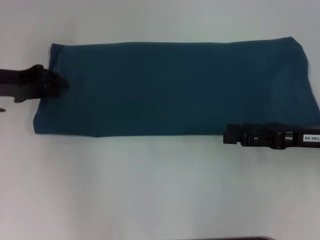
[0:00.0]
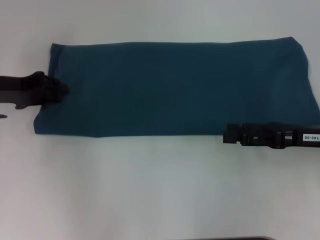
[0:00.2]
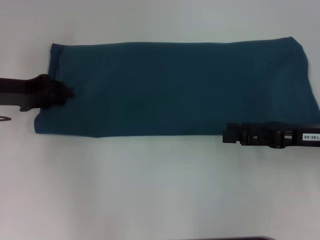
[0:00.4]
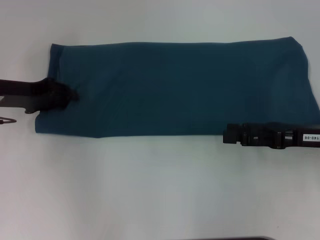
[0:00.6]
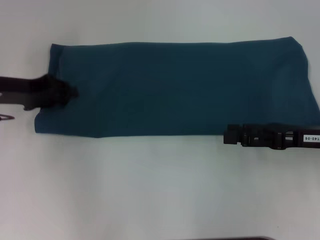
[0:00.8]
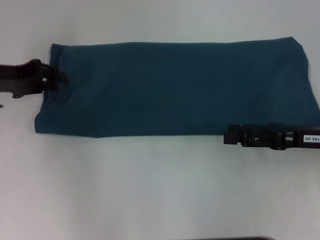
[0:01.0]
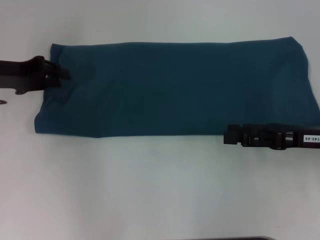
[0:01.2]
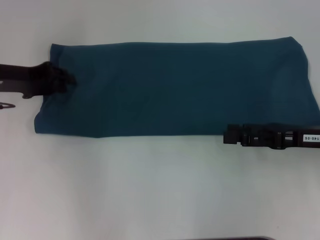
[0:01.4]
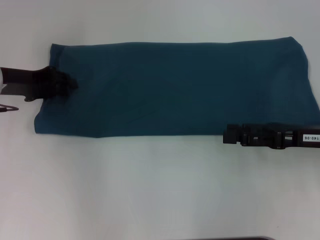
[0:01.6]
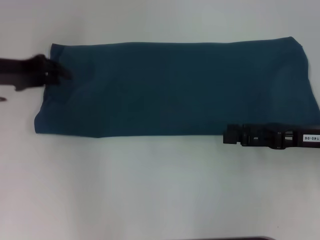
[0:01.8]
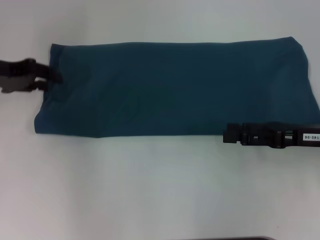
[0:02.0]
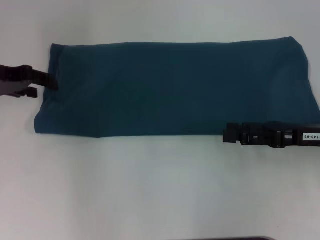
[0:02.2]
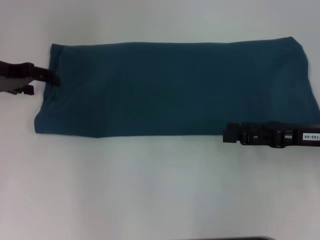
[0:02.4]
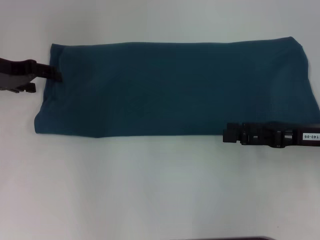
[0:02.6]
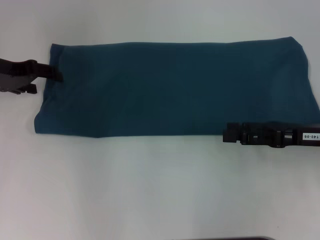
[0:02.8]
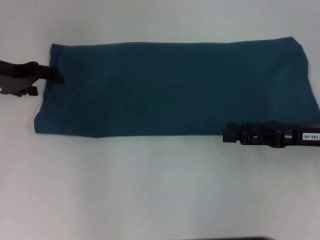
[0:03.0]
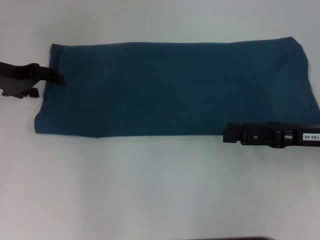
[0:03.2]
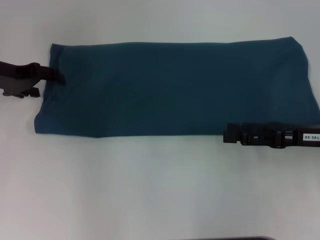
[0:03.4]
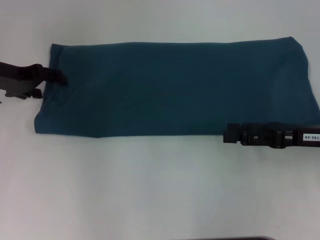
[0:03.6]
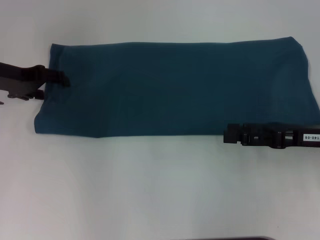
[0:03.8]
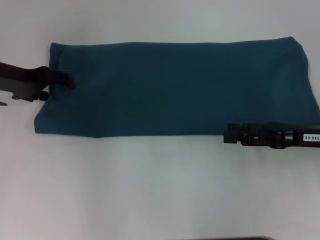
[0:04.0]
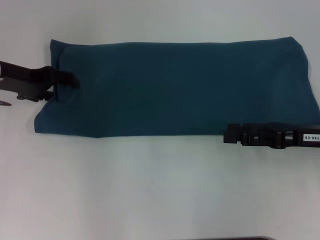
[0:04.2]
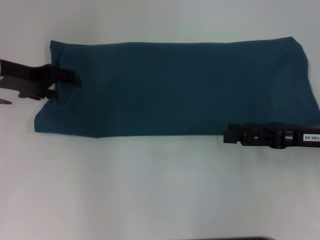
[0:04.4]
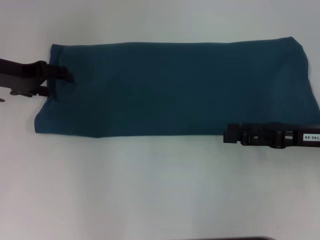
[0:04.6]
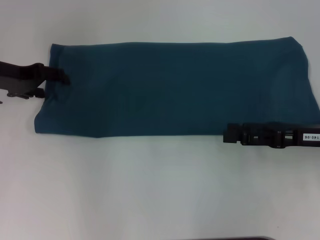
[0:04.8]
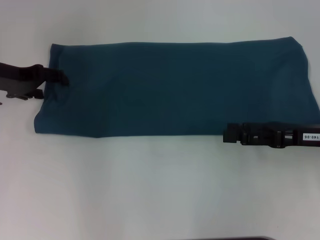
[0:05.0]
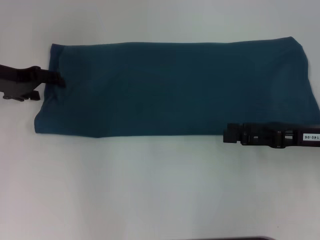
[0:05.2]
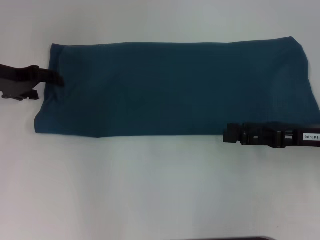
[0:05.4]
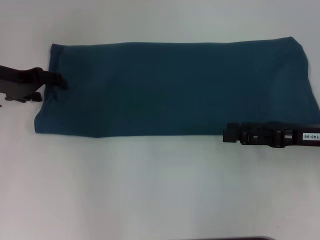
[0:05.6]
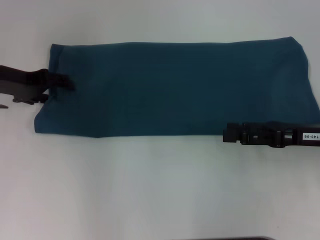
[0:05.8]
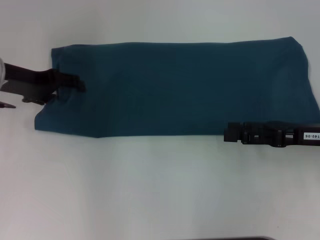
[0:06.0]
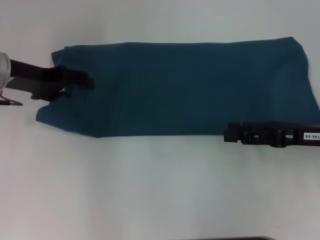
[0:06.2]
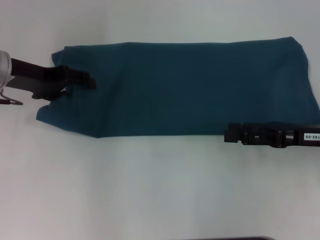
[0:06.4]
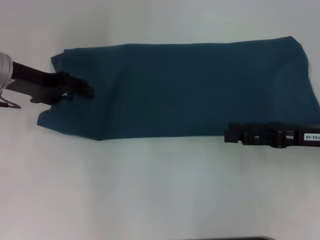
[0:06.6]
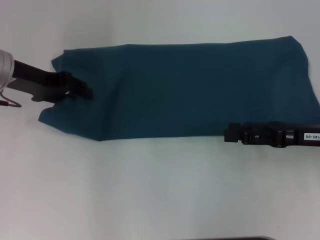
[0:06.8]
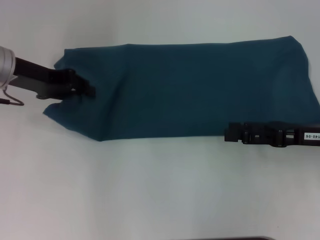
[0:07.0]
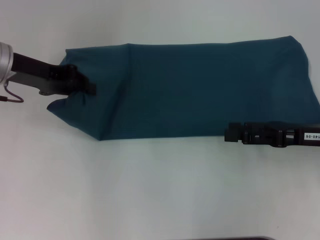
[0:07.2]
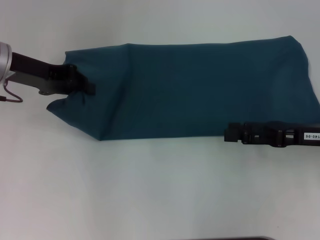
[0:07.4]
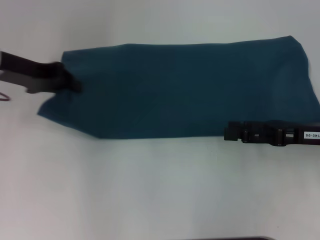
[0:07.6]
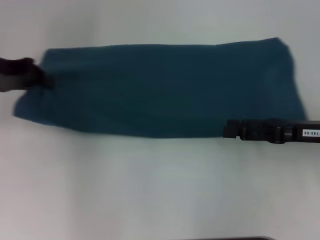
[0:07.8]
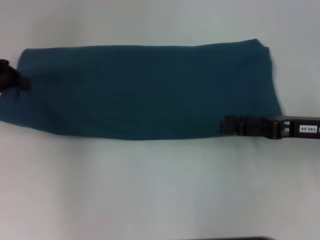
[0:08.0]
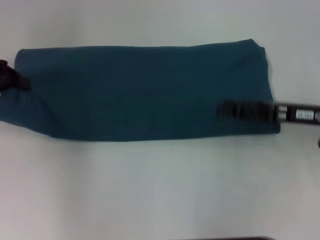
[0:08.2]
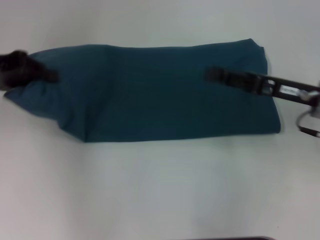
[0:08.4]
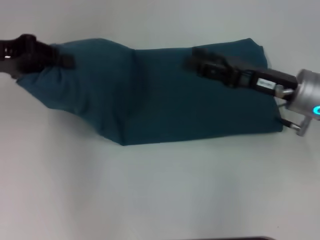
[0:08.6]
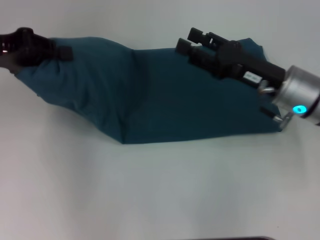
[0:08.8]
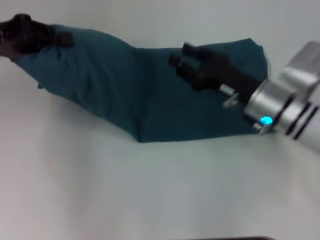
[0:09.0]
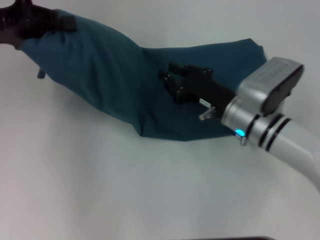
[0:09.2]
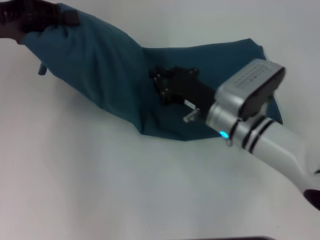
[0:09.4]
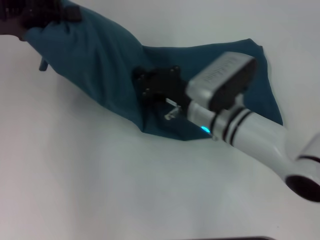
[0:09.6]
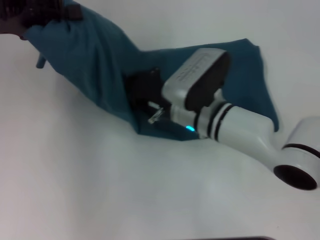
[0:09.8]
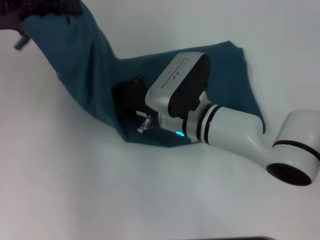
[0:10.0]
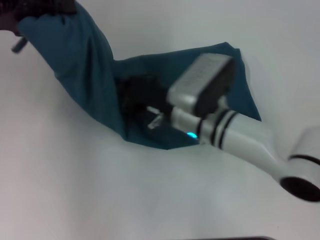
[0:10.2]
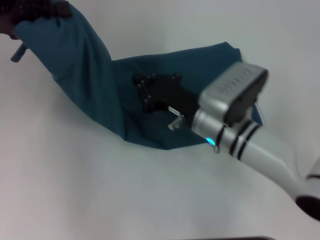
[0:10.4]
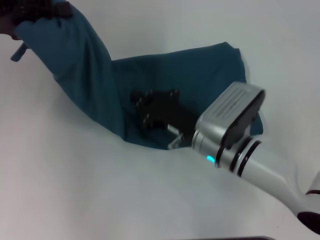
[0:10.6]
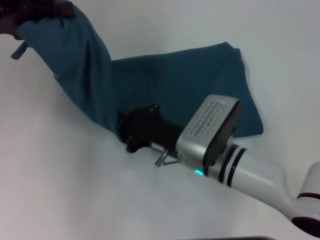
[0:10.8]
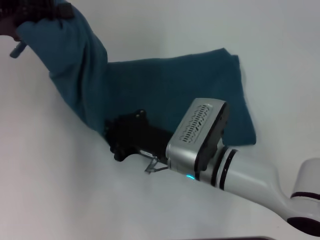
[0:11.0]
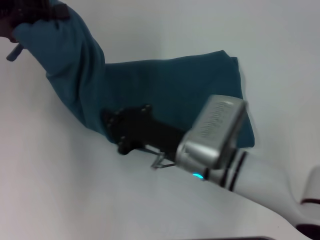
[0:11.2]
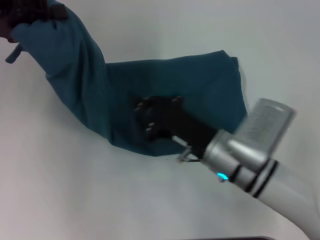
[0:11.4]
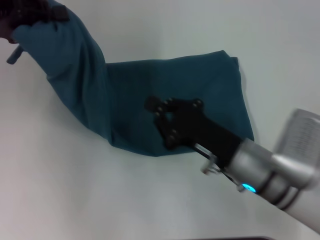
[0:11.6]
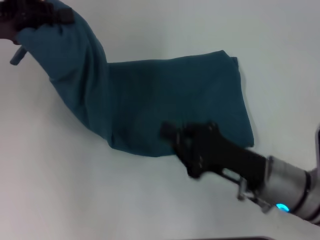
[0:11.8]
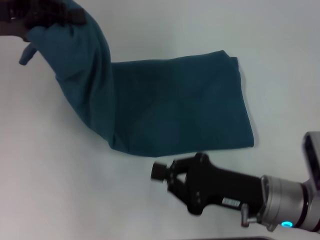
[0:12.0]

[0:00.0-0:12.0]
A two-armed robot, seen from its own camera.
0:00.0 to 0:01.6: The grippers move only a little.
0:01.6 to 0:03.0: The left gripper opens up.
0:03.0 to 0:06.0: The grippers move only a little.
0:06.0 to 0:07.6: The left gripper closes its fingers.
0:07.6 to 0:09.0: The right gripper shifts approximately 10 cm to the left; the left gripper moves some 5 cm.
0:09.0 to 0:10.4: The right gripper shifts some 10 cm to the left, and closes up.
0:10.4 to 0:12.0: The right gripper moves backward and to the right, roughly 10 cm.

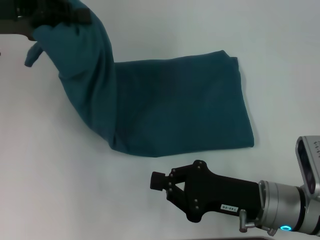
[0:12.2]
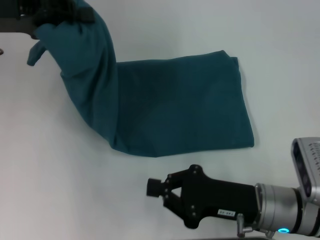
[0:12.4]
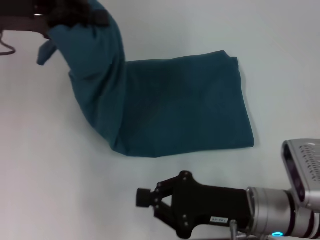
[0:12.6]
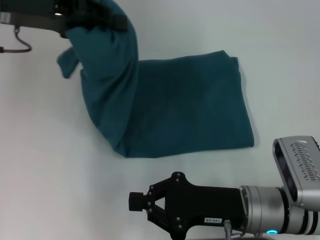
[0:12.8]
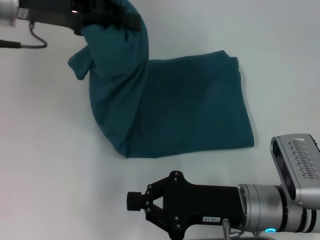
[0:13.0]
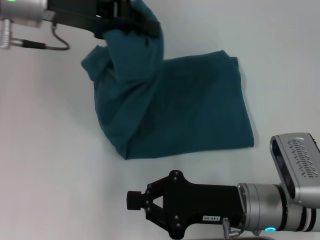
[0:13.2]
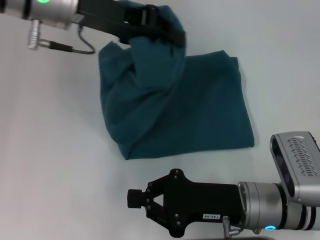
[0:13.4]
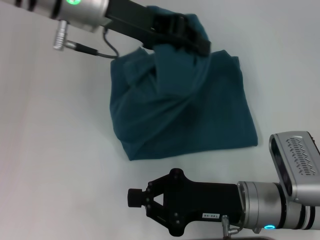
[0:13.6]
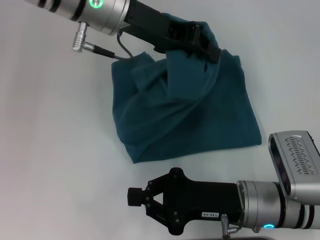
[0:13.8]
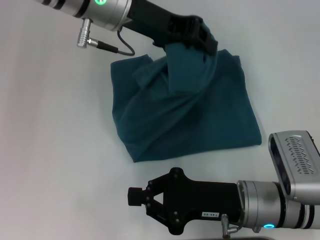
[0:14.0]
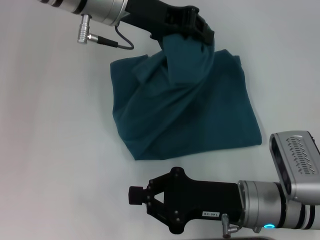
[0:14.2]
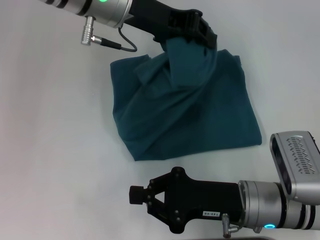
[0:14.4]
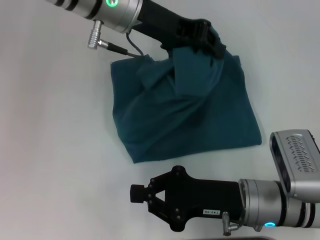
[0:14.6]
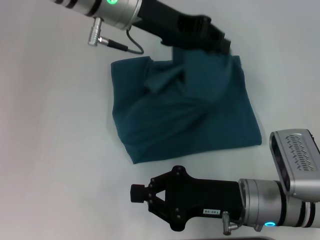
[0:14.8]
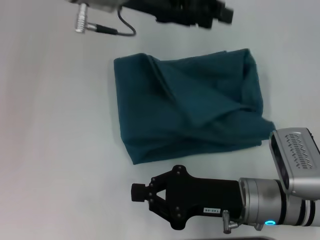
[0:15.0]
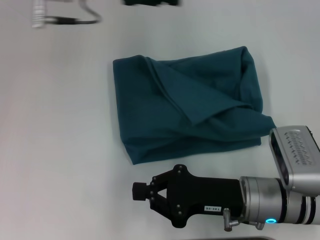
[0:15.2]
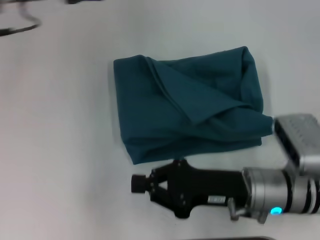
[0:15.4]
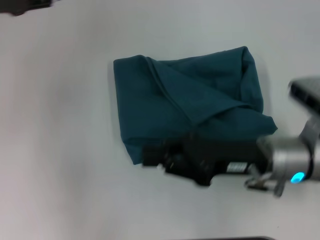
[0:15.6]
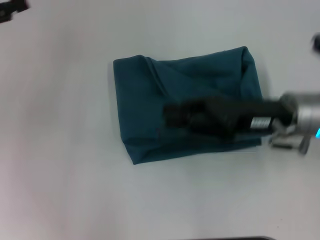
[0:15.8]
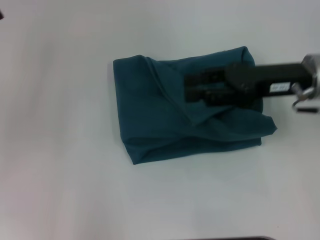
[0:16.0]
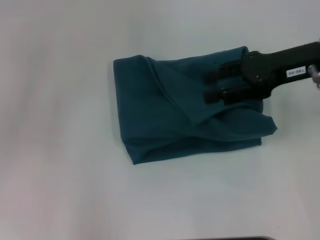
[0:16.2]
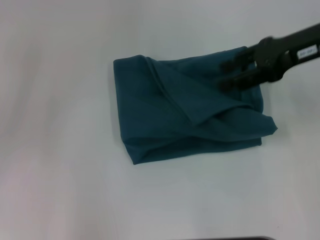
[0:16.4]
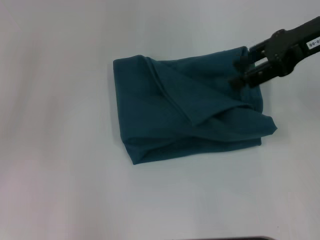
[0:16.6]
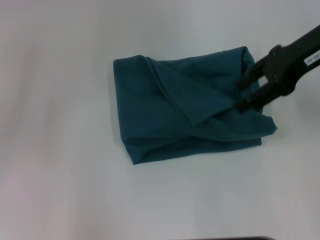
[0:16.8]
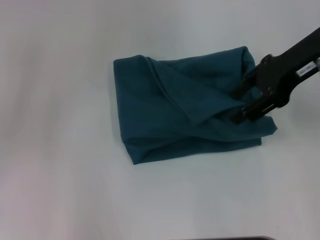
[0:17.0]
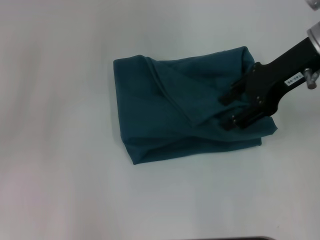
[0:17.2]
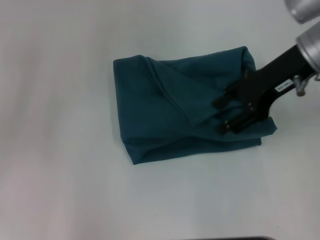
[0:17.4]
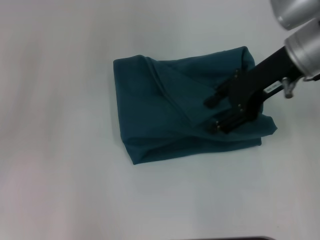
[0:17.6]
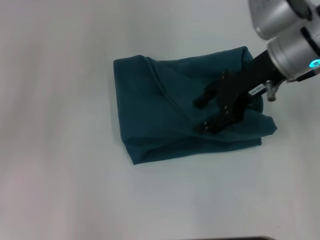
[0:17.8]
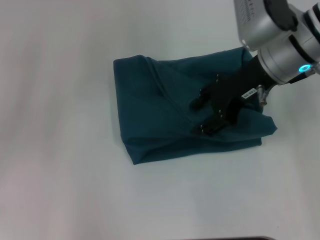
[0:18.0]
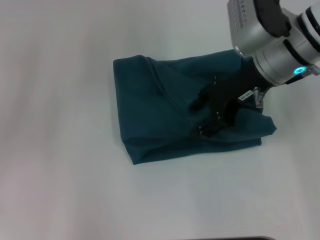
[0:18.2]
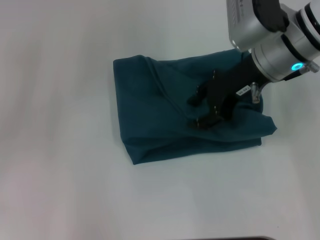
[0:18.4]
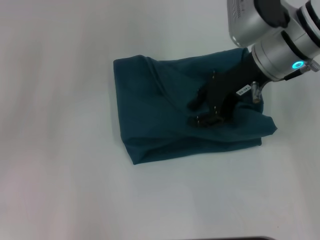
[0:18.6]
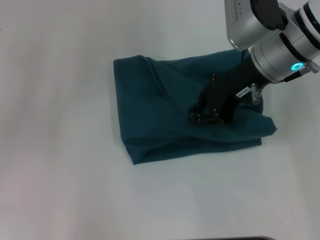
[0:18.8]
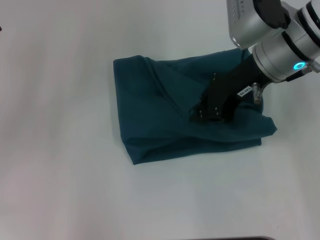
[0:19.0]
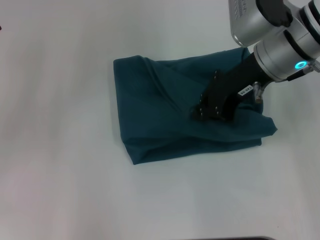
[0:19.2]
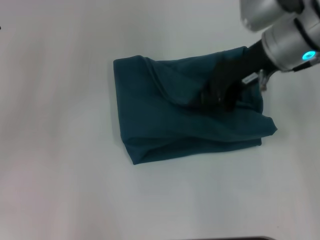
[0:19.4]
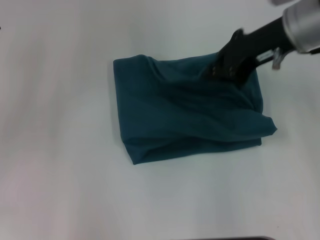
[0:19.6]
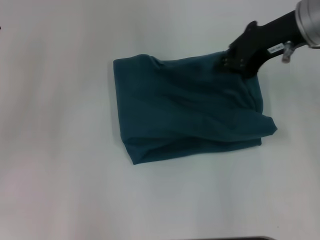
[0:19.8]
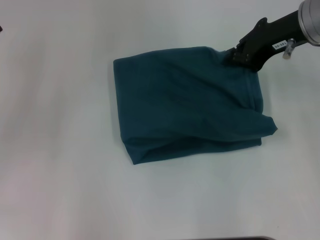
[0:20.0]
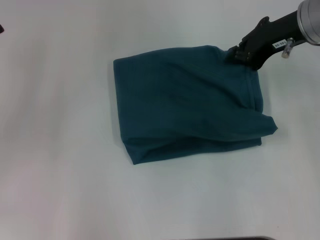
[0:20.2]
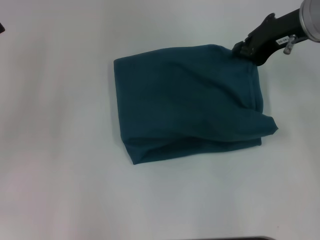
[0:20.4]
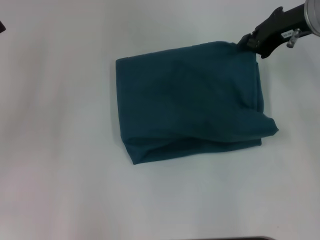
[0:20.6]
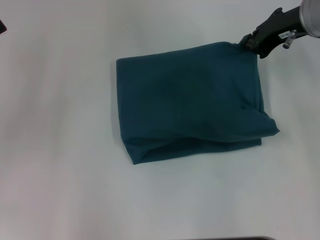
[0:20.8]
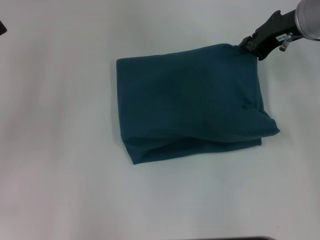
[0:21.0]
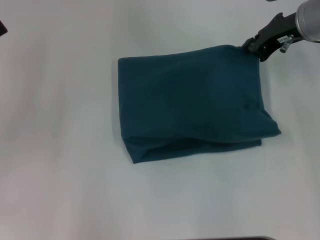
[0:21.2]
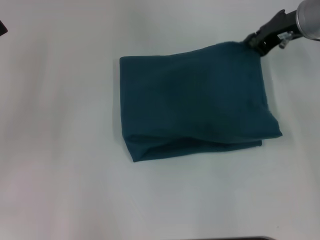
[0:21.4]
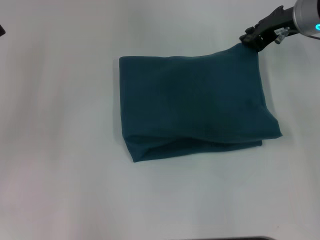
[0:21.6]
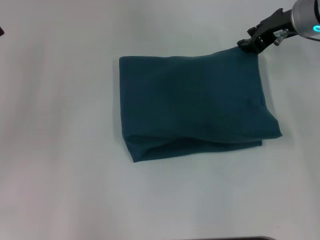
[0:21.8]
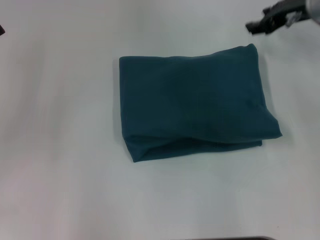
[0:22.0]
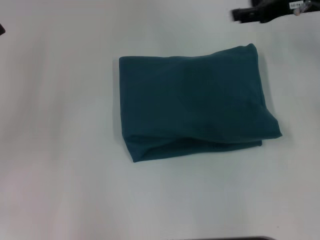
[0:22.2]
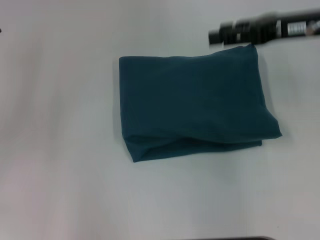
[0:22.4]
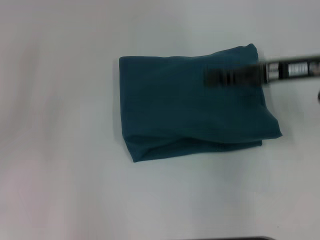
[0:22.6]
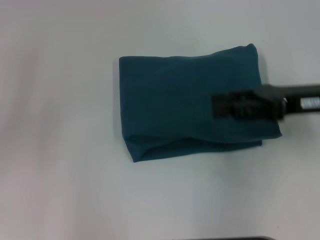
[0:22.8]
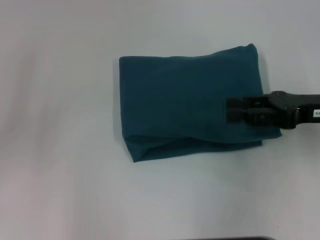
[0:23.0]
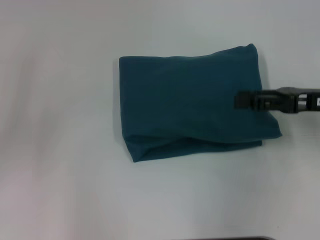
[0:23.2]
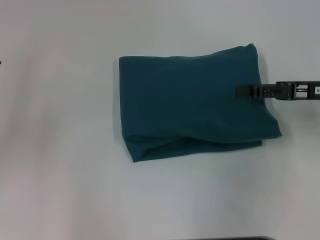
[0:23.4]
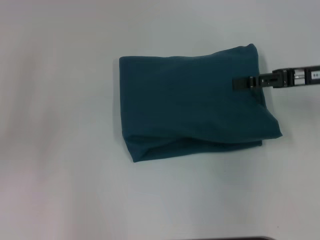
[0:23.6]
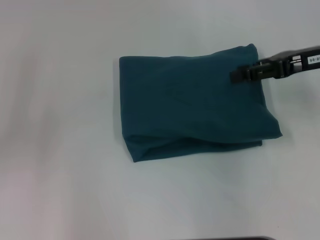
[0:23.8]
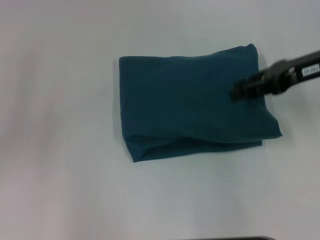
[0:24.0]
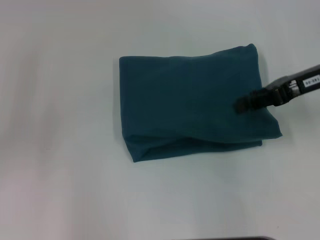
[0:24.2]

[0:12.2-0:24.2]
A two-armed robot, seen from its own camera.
Step, 0:12.2 to 0:15.0: Fold the clothes to the left.
0:12.2 to 0:13.8: The left gripper heads to the right, covering approximately 20 cm.
0:13.8 to 0:15.2: The left gripper is displaced to the left by about 5 cm, and opens its fingers.
0:15.2 to 0:16.6: The left gripper moves to the left and backward, approximately 25 cm, and opens. The right gripper goes about 30 cm upward, forward and to the right, and opens.
0:16.6 to 0:18.2: The right gripper moves to the left and downward, roughly 10 cm.
0:18.2 to 0:19.8: The right gripper moves some 5 cm, and closes.
0:19.8 to 0:21.2: The right gripper moves approximately 5 cm.
0:21.2 to 0:22.6: The right gripper is displaced backward by roughly 10 cm, and opens.
